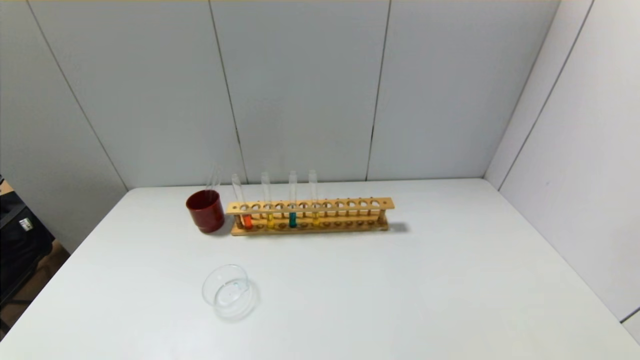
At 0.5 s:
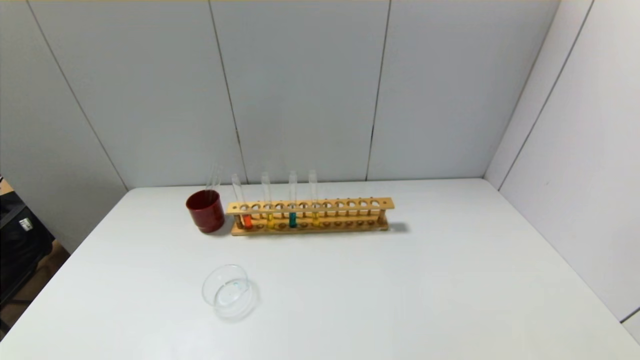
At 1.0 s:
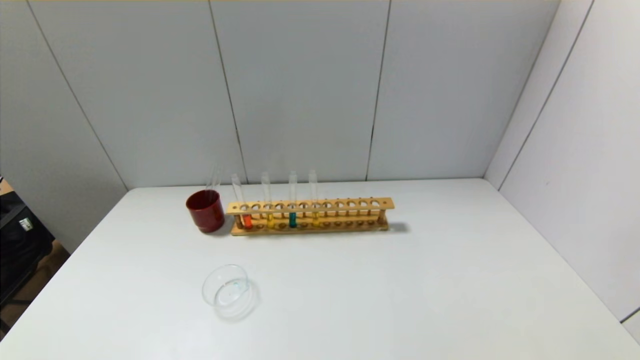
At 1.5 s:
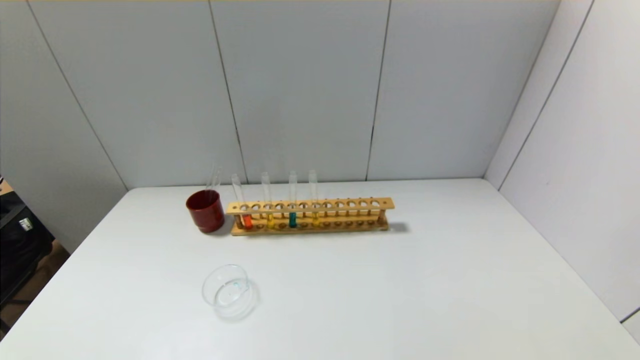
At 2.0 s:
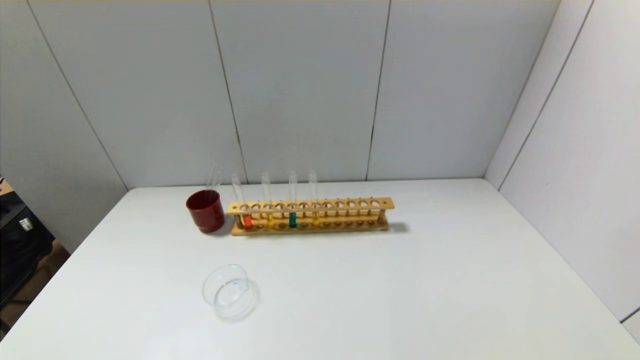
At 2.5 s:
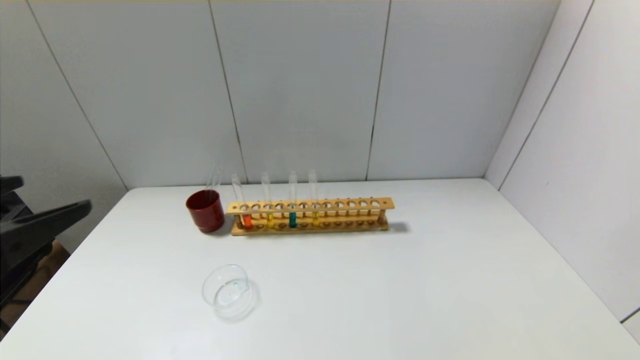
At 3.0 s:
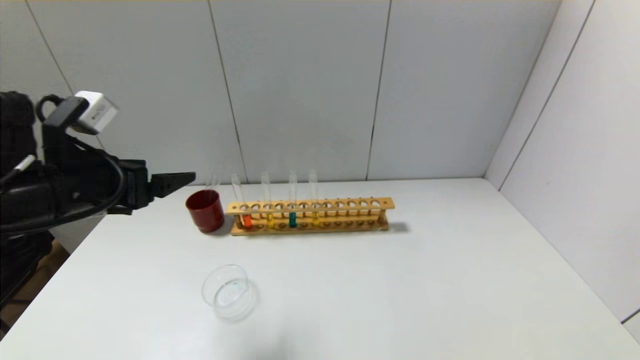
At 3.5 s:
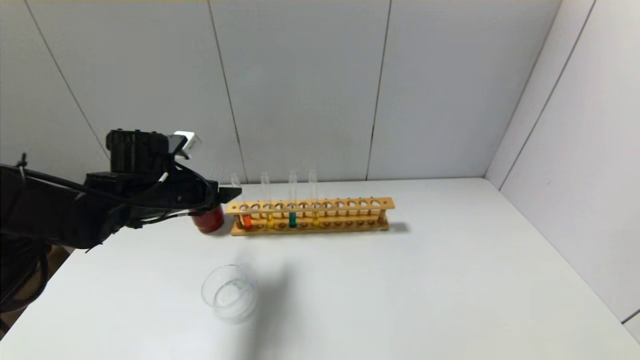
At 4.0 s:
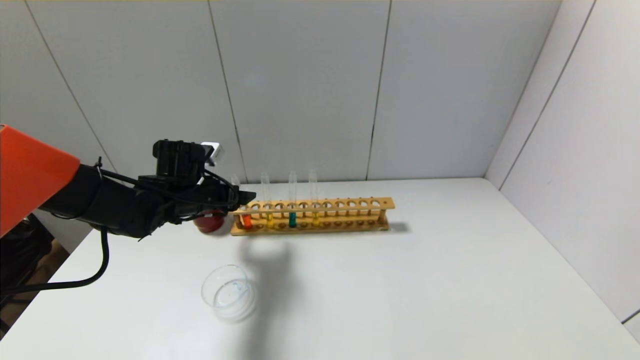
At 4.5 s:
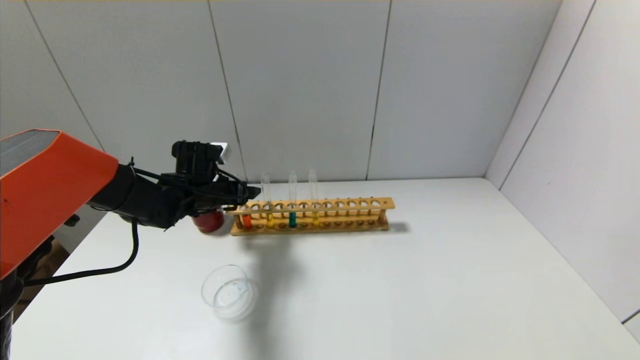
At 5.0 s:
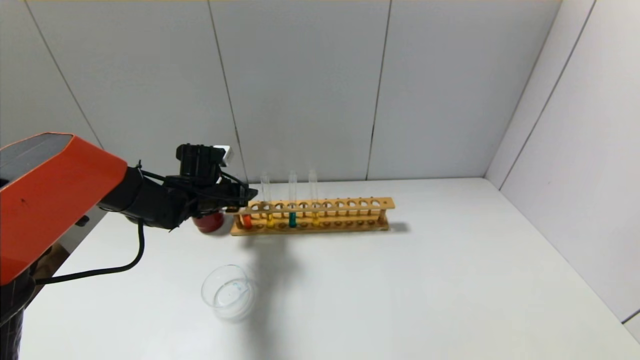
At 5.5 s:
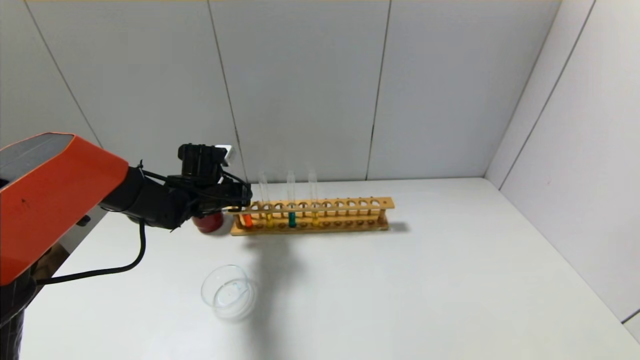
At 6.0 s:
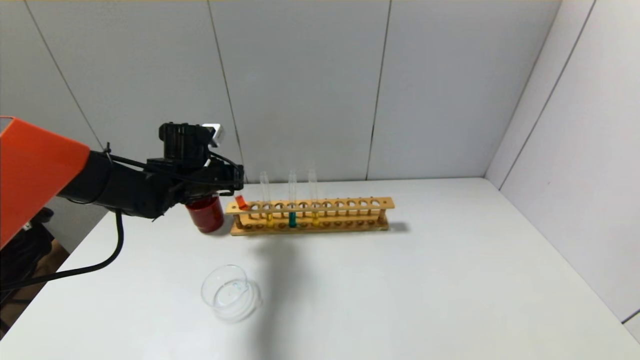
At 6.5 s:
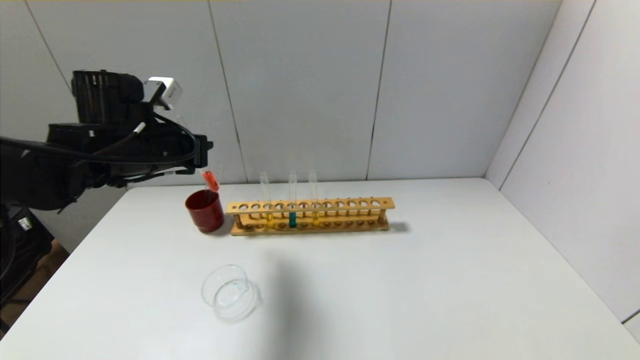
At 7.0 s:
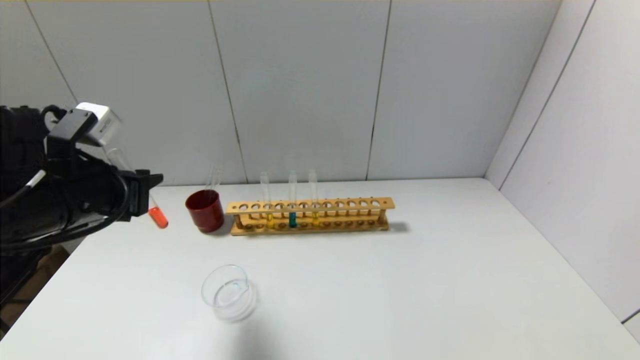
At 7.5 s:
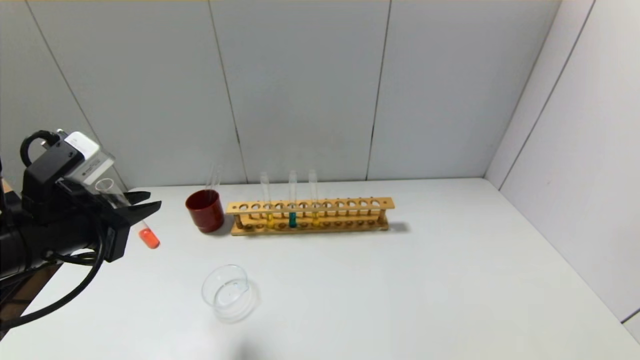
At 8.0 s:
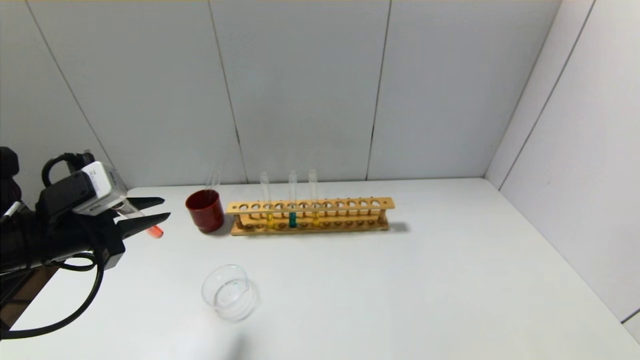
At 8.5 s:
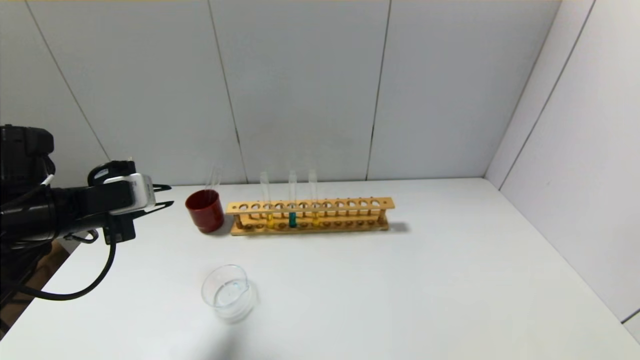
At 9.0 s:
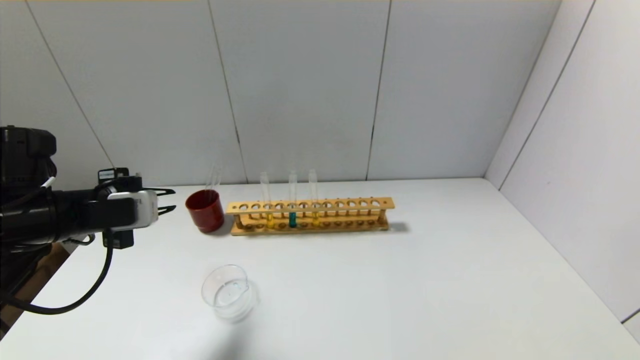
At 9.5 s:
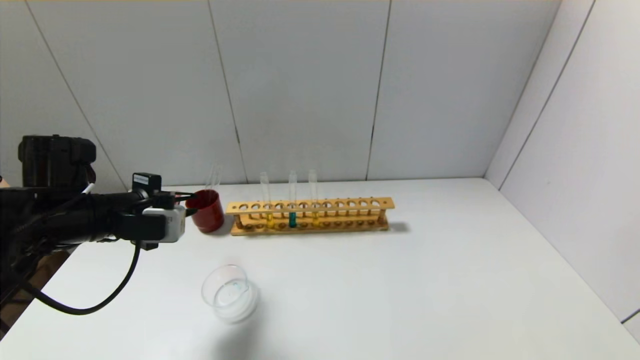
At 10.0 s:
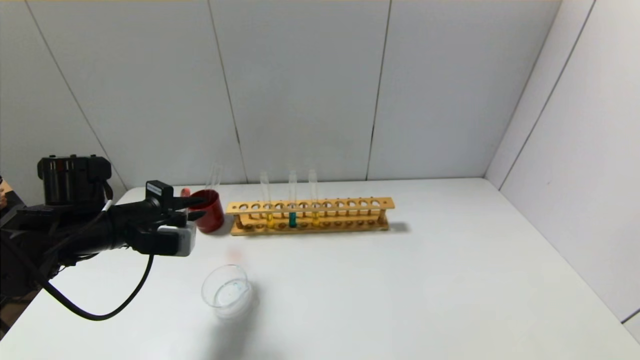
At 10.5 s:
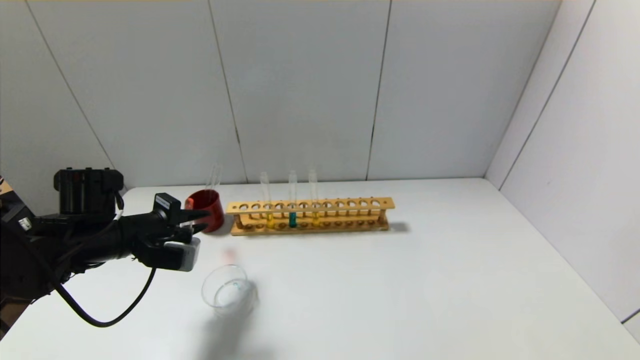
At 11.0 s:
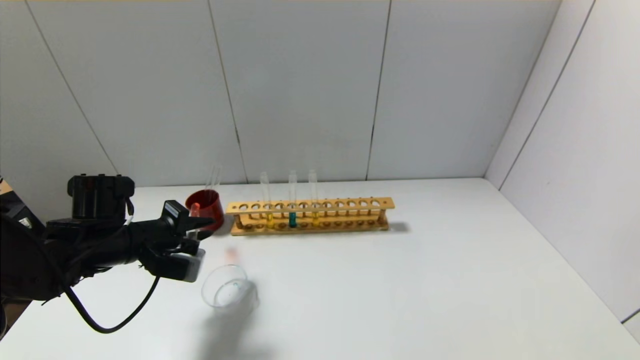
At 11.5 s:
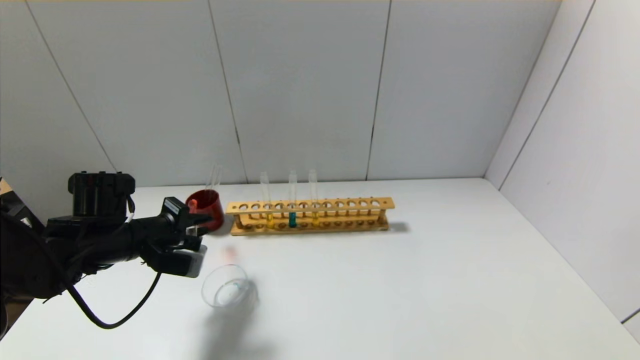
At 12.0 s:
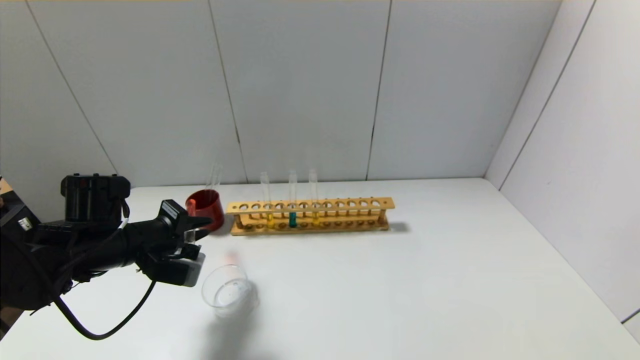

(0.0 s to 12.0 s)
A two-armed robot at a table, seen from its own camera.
Step, 0.0 s - 5.0 s: Grasp the red reagent with the left gripper.
2.0 s - 4.0 s: The left gripper is displaced forward by roughly 40 cm.
4.0 s - 6.0 s: The left gripper closes.
6.0 s - 8.0 s: The left gripper goes some 20 cm backward and to the left.
8.0 s - 10.0 s: The left gripper is displaced forward by approximately 5 cm.
10.0 s - 12.0 s: The grippers make only small movements.

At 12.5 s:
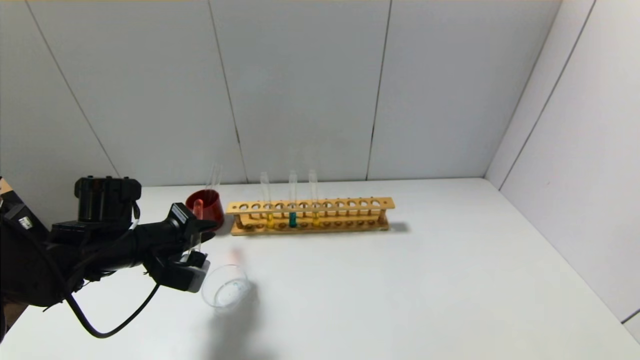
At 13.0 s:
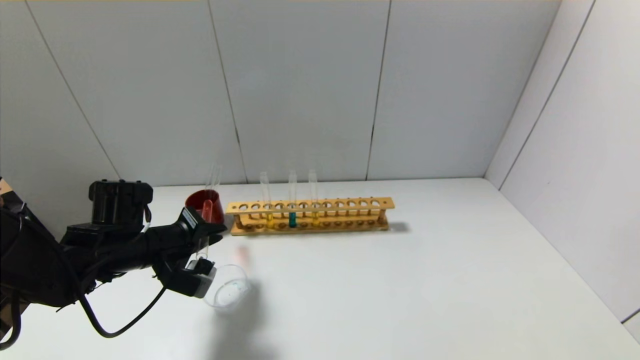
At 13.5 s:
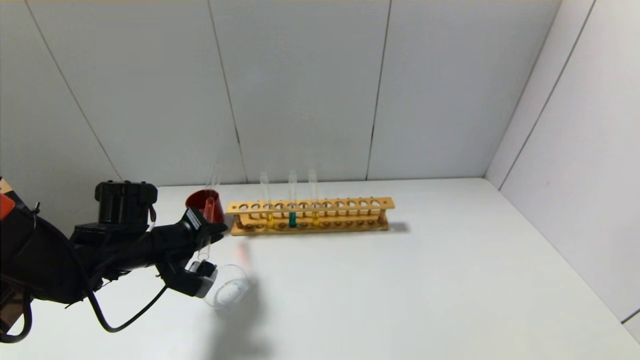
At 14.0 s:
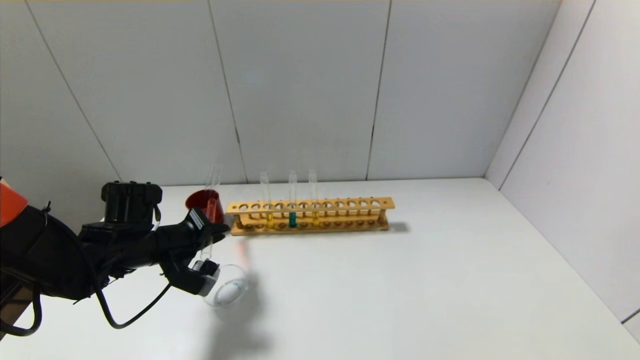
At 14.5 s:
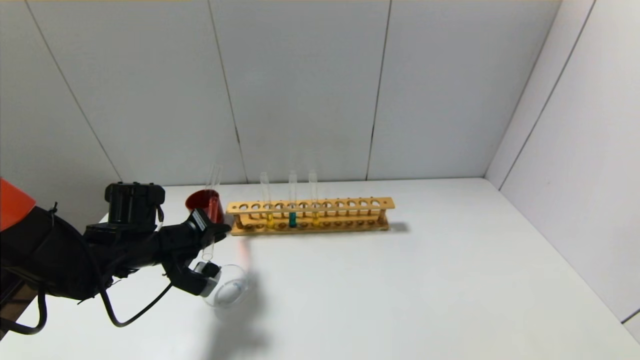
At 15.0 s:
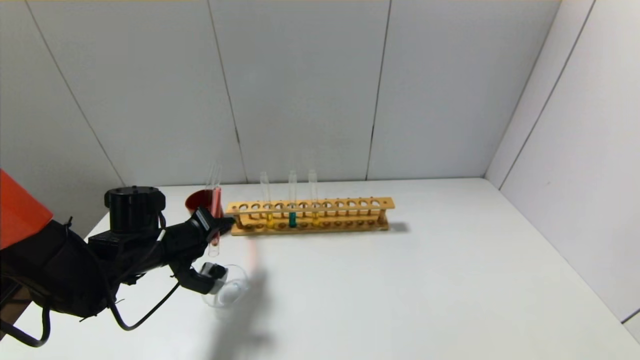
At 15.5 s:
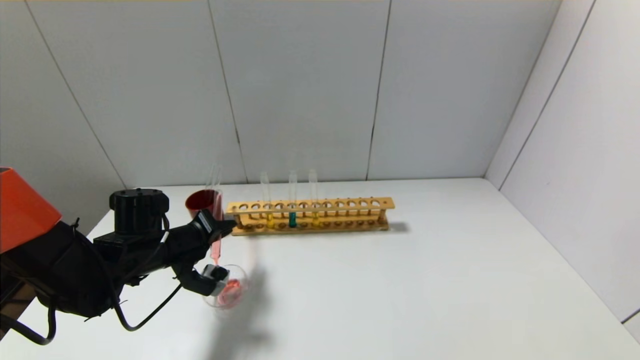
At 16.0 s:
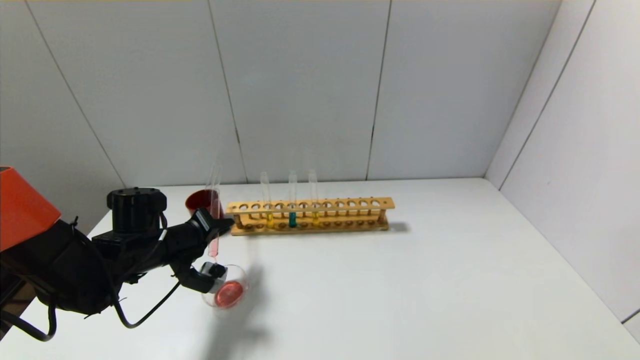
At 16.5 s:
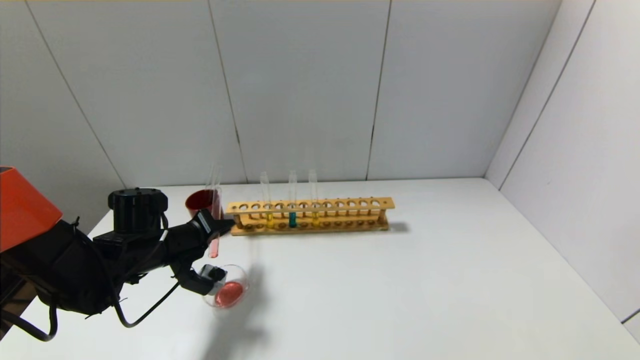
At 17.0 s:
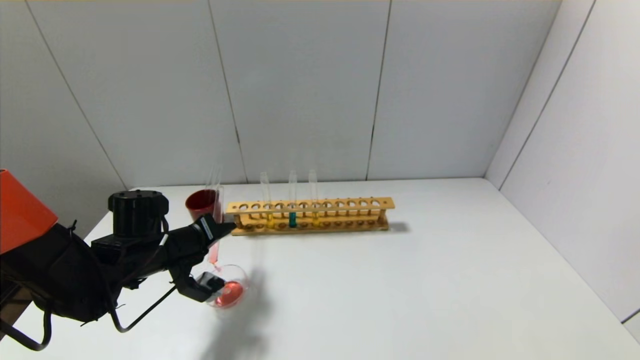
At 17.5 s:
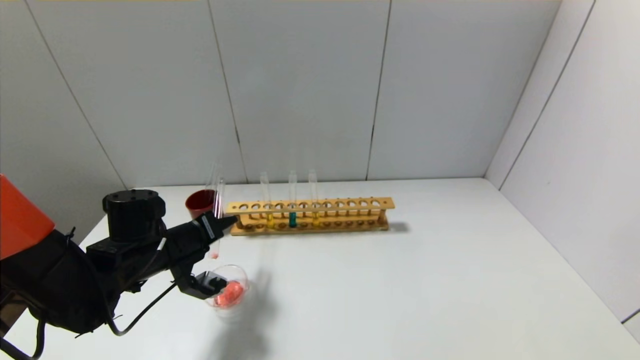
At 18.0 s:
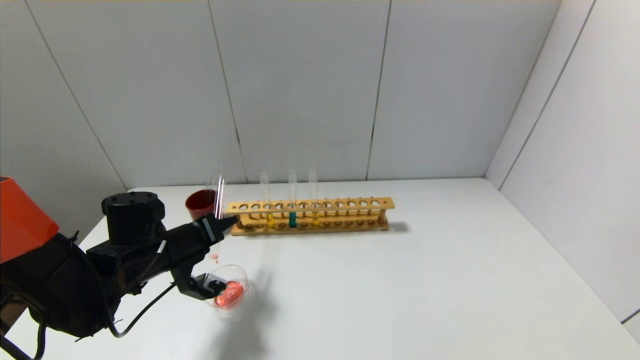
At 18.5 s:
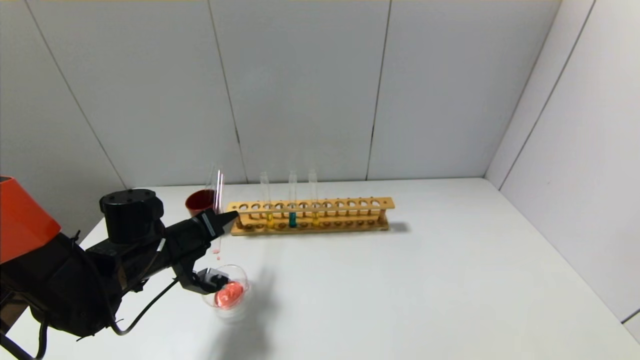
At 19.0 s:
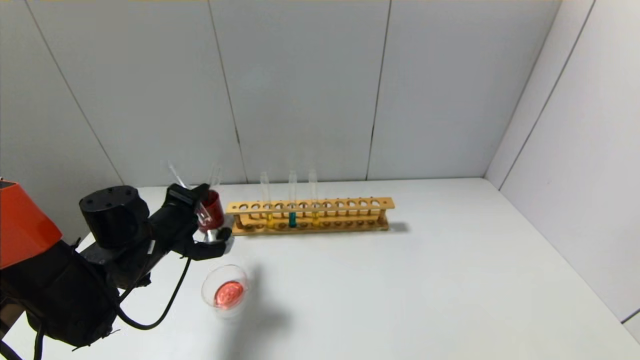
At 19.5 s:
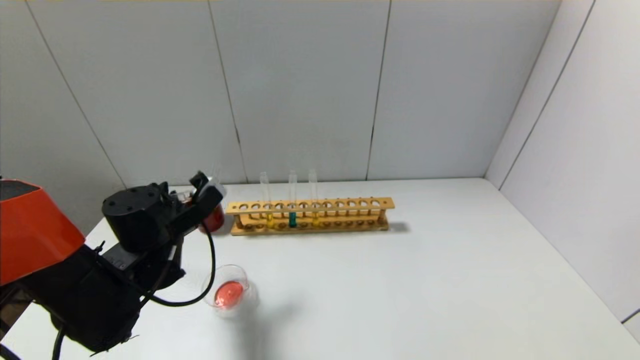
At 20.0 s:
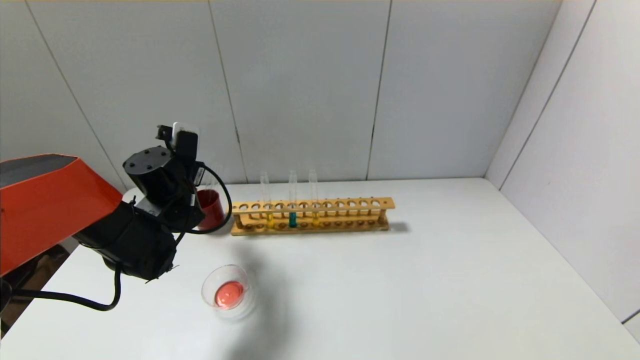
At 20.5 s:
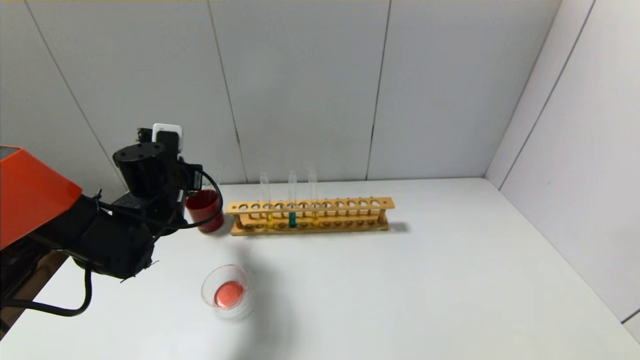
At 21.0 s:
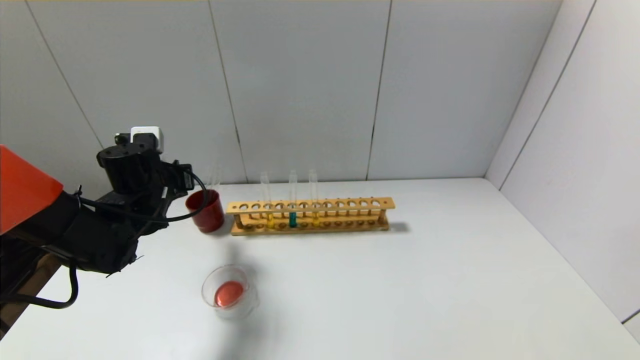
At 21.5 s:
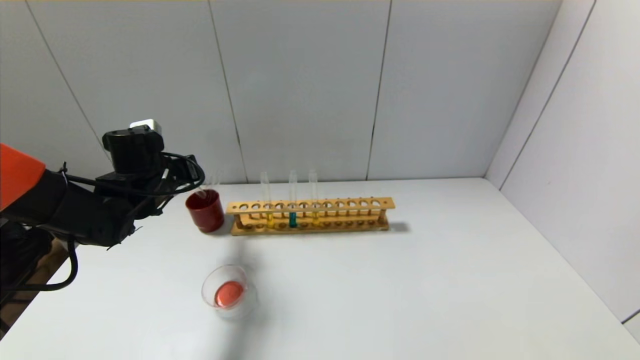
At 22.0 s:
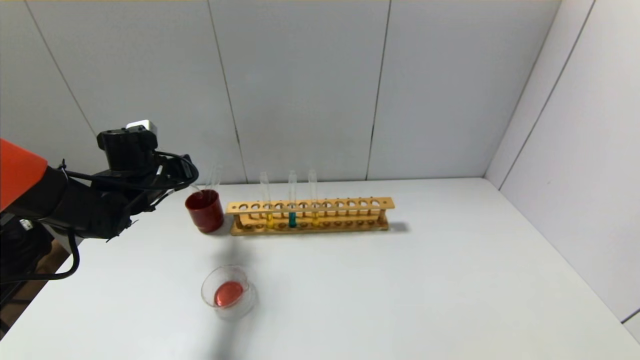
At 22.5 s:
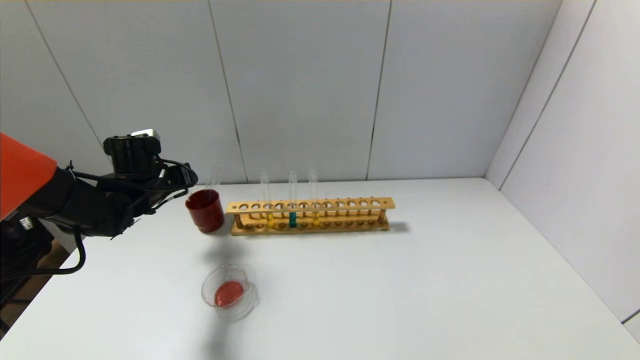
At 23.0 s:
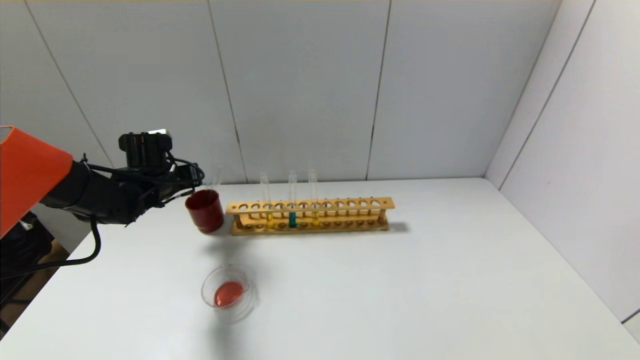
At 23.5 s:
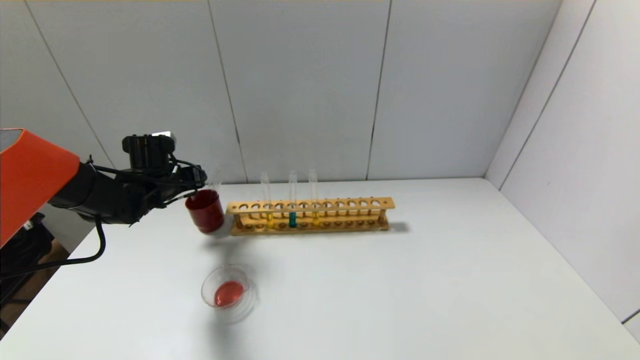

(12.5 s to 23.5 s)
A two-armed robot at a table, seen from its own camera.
Step, 12.5 s - 19.0 s: Pour the red reagent into the graduated cylinder with the left gripper.
12.5 s - 16.0 s: The grippers stay close to where they were, moving slightly.
18.0 s - 20.0 s: The left gripper moves forward and upward, about 10 cm.
21.5 s - 23.5 s: The left gripper is displaced forward by roughly 5 cm, and opens.
